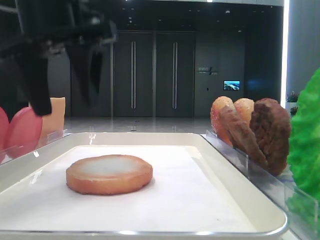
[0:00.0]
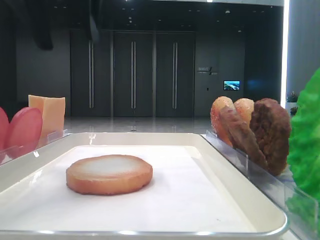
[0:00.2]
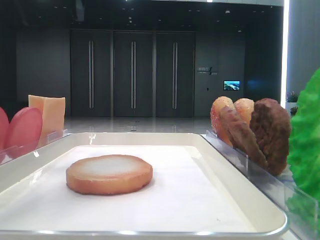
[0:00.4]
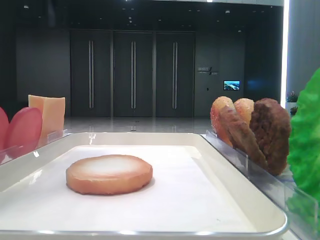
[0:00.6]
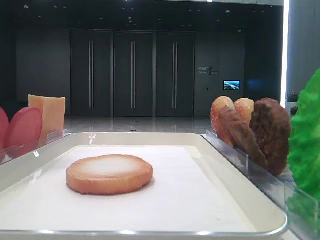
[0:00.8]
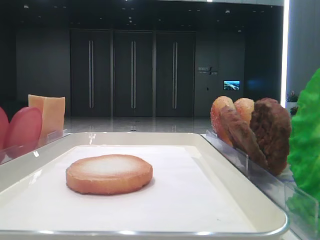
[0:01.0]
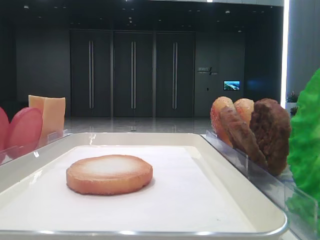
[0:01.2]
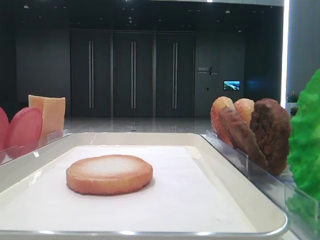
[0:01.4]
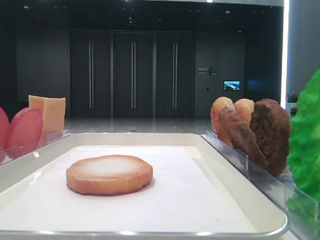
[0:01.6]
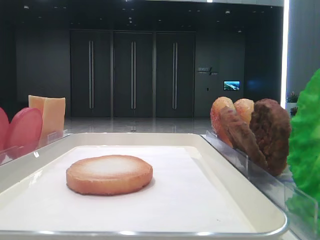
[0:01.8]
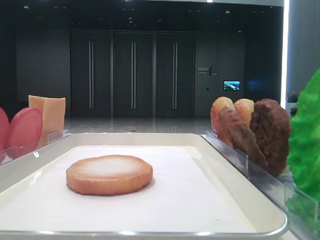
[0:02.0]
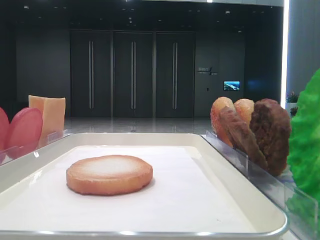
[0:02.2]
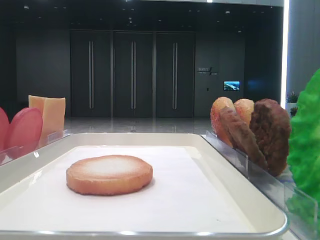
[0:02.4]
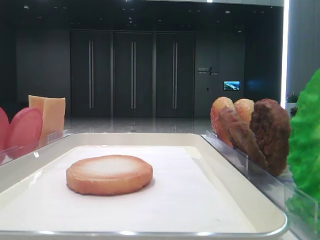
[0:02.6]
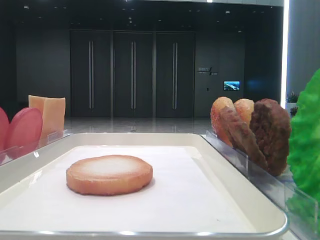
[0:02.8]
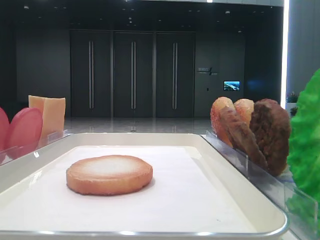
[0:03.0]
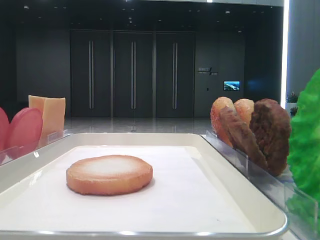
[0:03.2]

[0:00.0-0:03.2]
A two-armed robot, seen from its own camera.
0:00.0 to 0:01.6: The left gripper shifts some 30 cm backward and to the left.

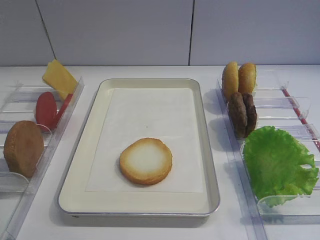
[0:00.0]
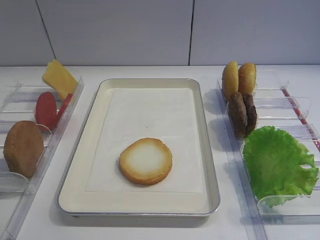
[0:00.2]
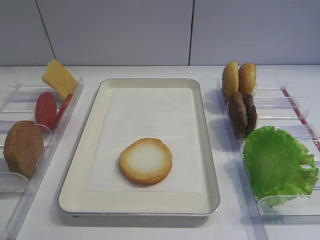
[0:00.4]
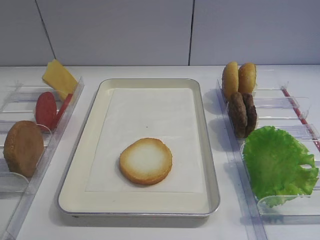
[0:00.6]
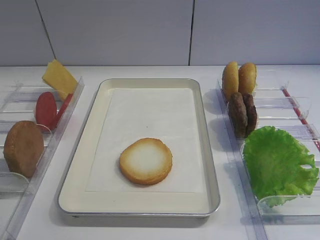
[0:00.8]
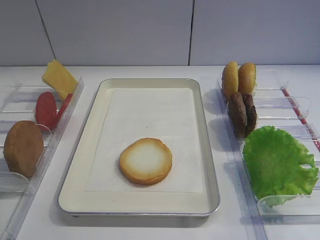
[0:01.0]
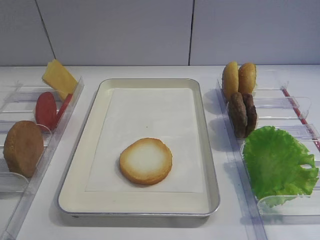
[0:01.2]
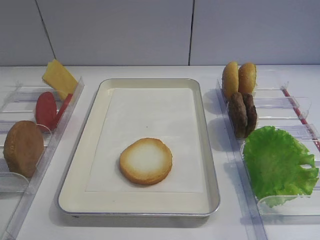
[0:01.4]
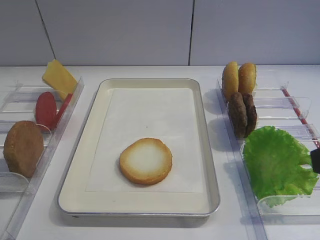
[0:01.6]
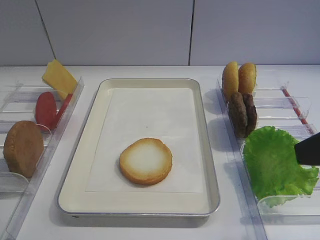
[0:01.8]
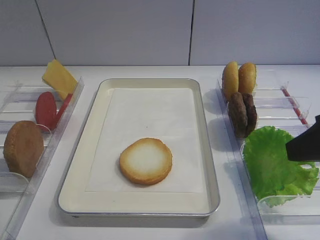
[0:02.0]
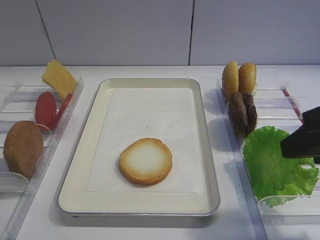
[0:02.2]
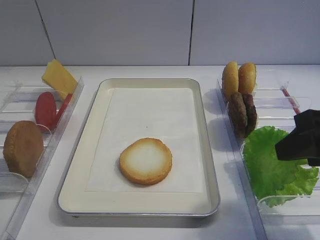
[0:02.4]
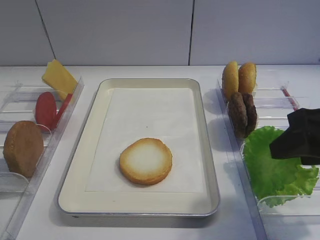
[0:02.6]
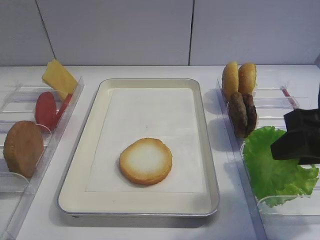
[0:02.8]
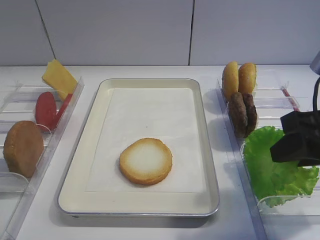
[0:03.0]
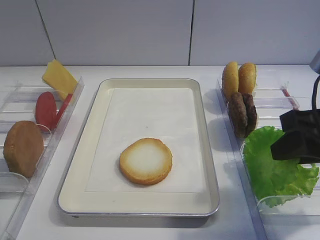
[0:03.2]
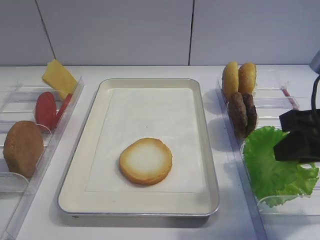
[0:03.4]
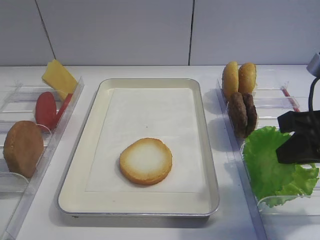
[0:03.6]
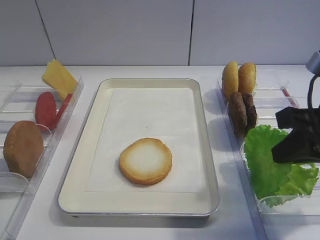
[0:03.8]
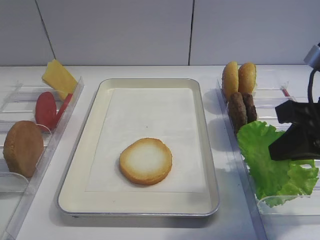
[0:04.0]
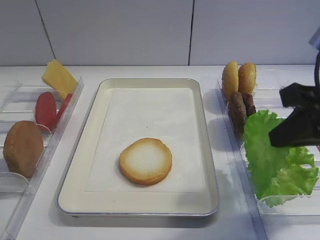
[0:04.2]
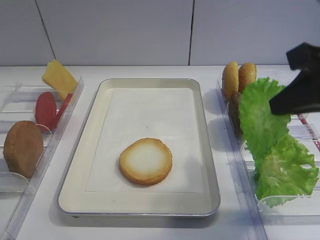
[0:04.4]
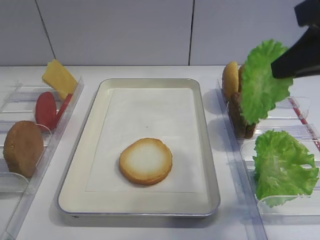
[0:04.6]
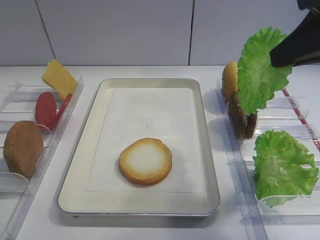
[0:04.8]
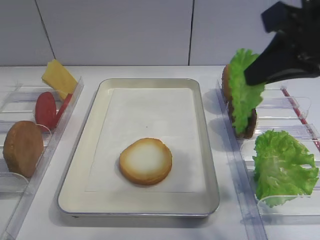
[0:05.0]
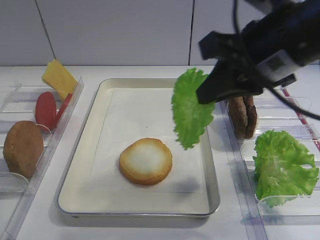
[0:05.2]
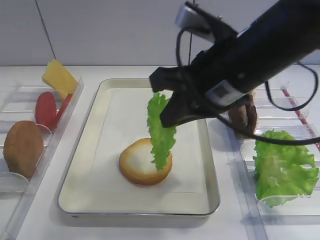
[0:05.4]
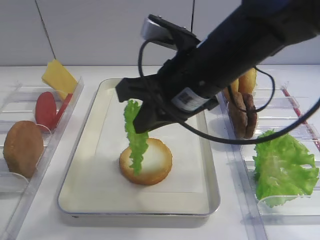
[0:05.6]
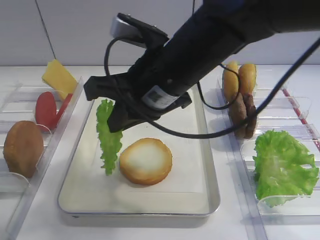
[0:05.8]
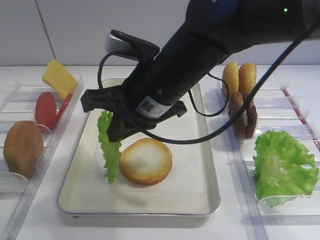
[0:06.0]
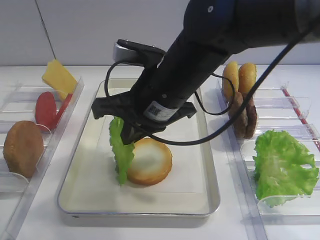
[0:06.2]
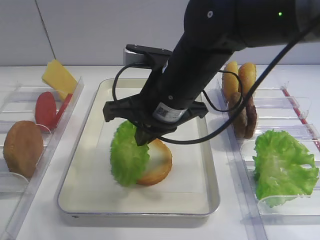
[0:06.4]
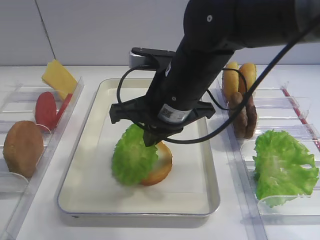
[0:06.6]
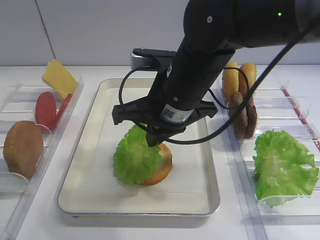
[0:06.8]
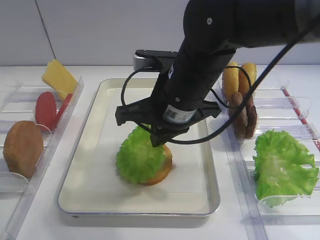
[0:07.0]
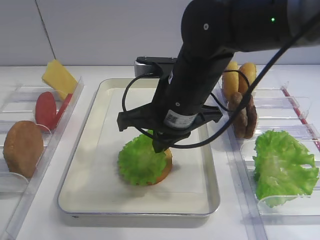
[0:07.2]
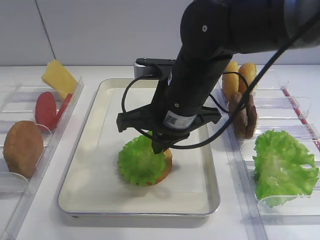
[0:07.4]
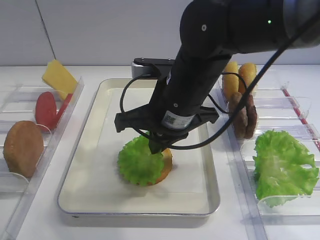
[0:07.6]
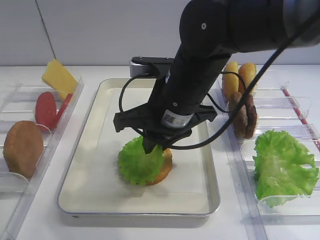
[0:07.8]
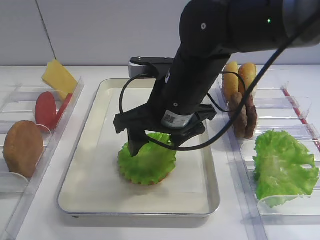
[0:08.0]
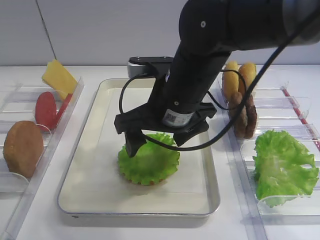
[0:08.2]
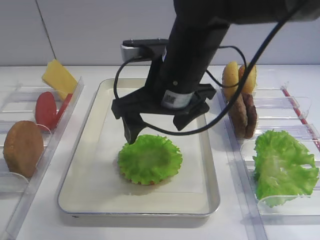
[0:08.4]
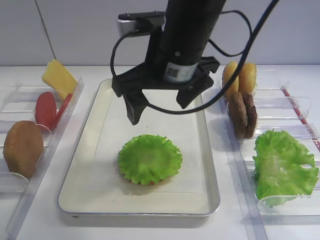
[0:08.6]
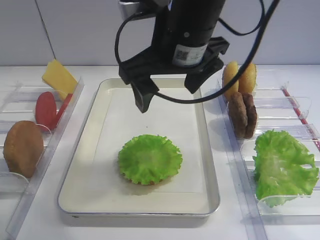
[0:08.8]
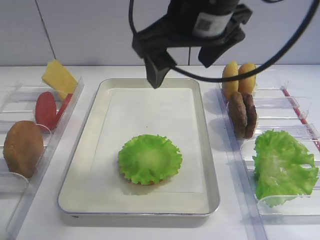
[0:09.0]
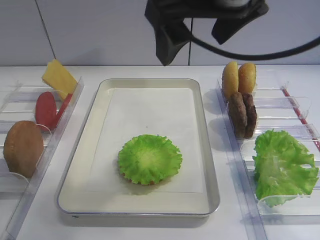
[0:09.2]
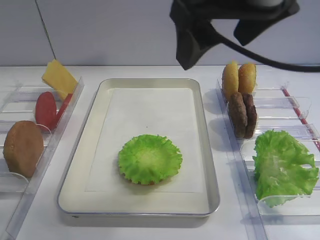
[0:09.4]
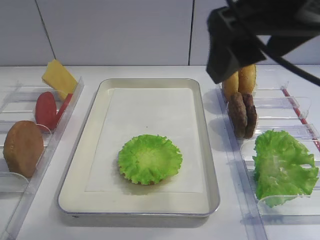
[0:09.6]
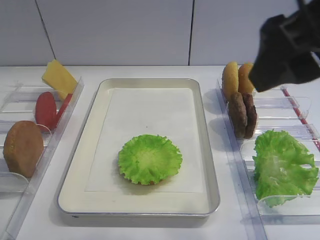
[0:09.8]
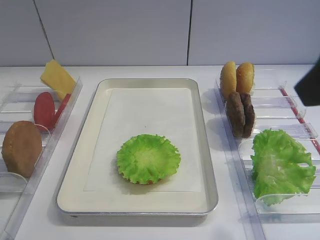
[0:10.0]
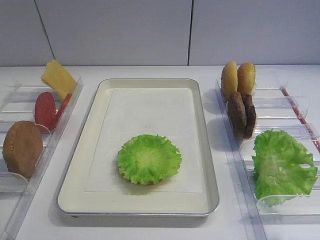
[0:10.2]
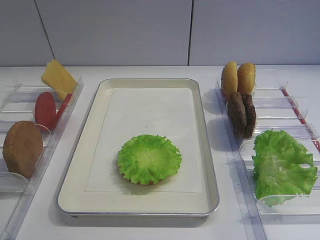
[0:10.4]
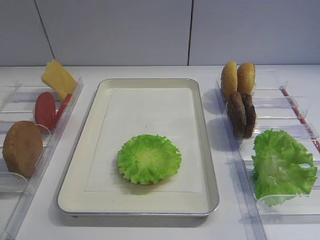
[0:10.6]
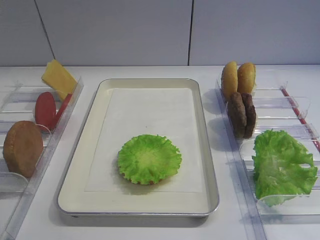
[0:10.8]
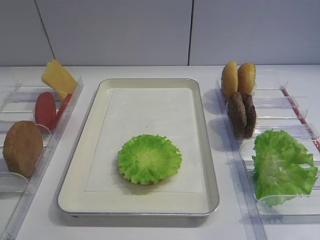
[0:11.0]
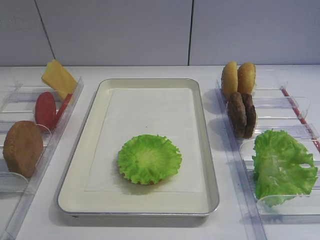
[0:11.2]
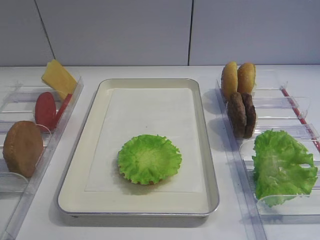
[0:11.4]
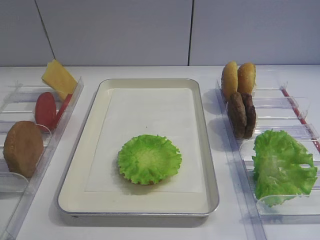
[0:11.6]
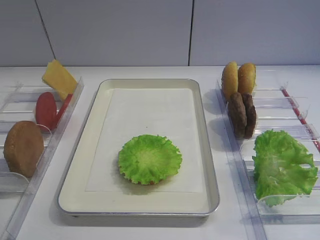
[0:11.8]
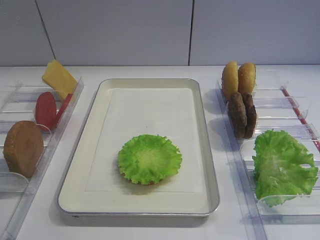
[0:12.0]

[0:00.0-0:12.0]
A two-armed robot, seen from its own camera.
Step, 0:00.0 to 0:04.8: Pick up the lettuce leaf with the right gripper.
Step, 0:05.2 to 0:08.2: Place the lettuce leaf on the bread slice with the right gripper.
0:01.6 to 0:03.0: The right gripper goes some 10 cm forward and downward.
0:03.0 to 0:04.4: The right gripper shifts roughly 5 cm upward, and closes.
0:04.4 to 0:06.0: The right gripper travels to the left by some 20 cm.
0:07.6 to 0:09.0: The right gripper heads upward, covering roughly 15 cm, and opens up.
0:09.0 to 0:10.4: The right gripper travels to the right and backward by some 25 cm.

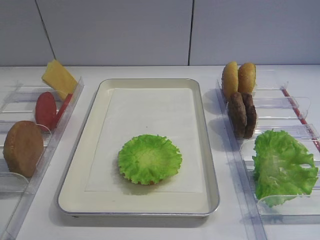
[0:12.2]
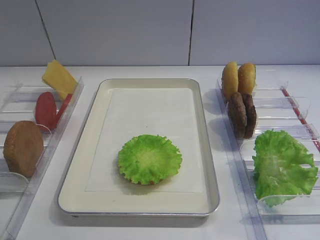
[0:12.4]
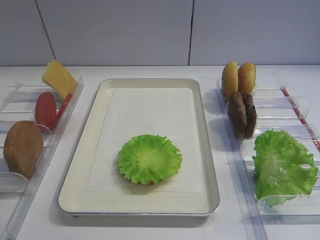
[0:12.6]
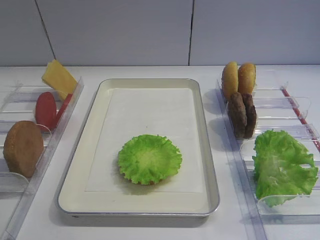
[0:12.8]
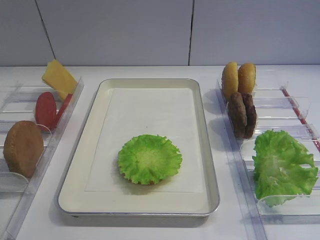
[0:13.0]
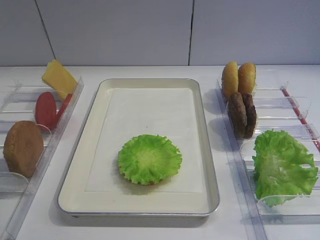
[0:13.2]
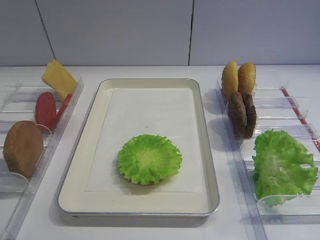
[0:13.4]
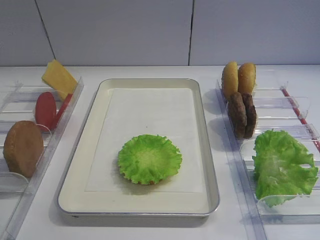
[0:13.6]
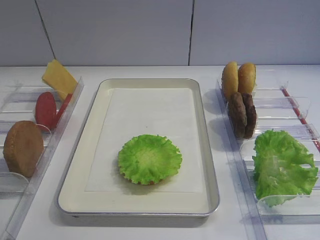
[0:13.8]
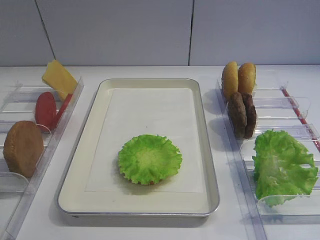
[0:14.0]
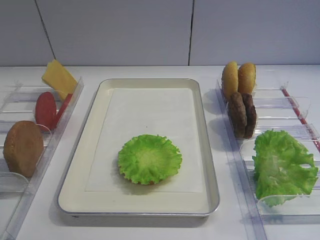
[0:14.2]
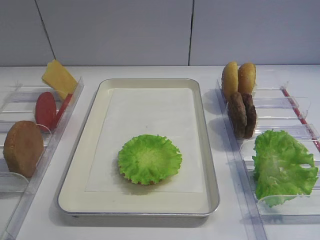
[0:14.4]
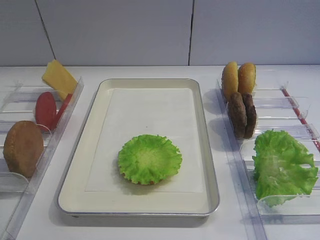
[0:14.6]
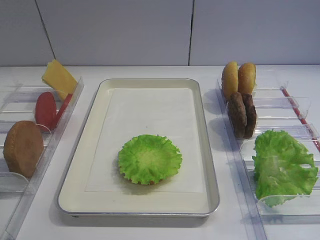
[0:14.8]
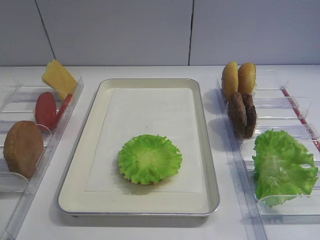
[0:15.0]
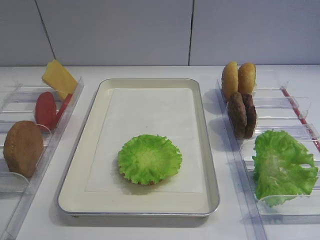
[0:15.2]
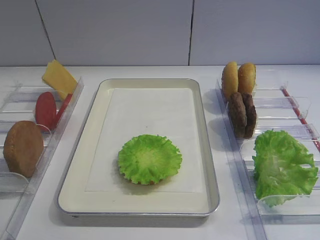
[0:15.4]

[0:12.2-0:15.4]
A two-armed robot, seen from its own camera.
0:12.2 to 0:15.4: The two grippers keep their place.

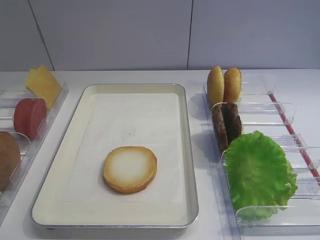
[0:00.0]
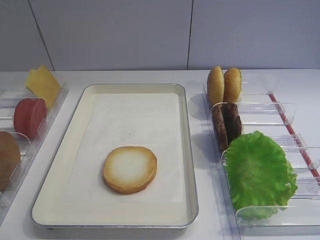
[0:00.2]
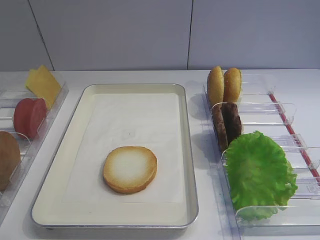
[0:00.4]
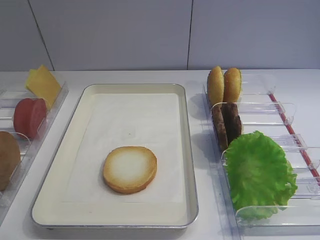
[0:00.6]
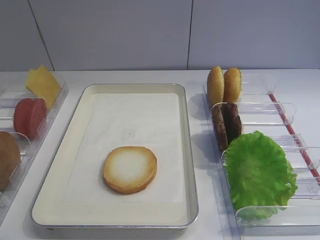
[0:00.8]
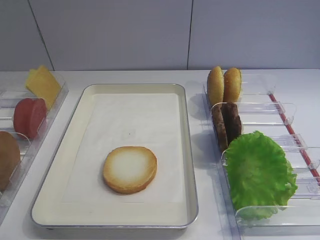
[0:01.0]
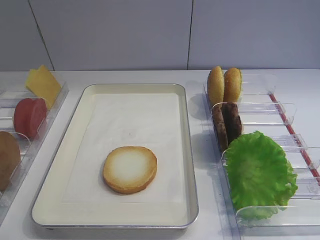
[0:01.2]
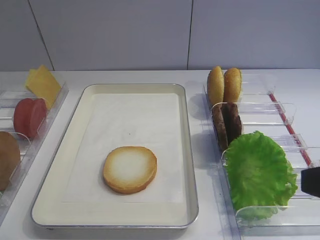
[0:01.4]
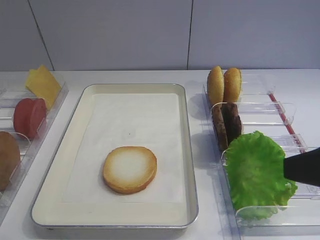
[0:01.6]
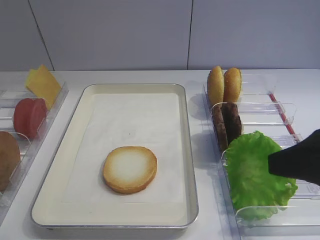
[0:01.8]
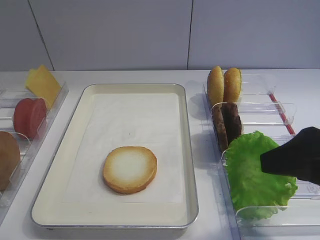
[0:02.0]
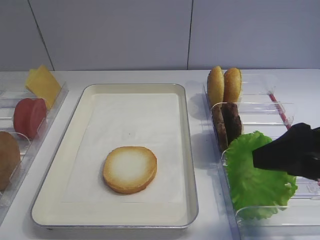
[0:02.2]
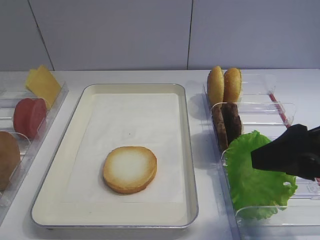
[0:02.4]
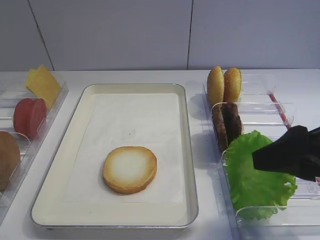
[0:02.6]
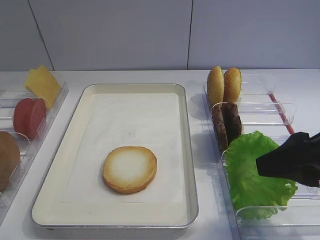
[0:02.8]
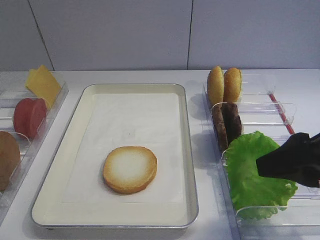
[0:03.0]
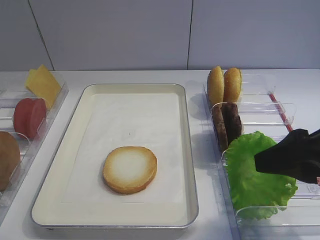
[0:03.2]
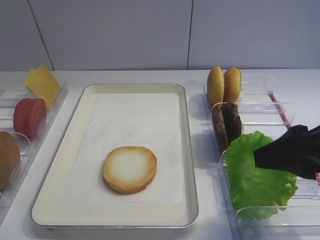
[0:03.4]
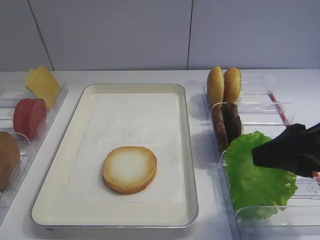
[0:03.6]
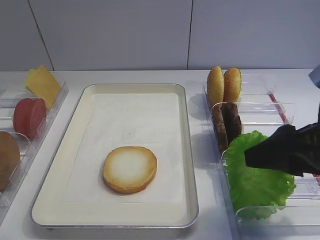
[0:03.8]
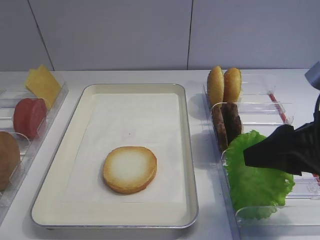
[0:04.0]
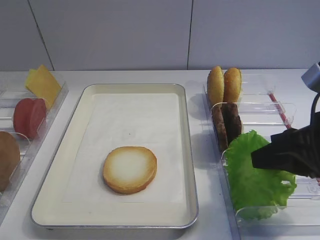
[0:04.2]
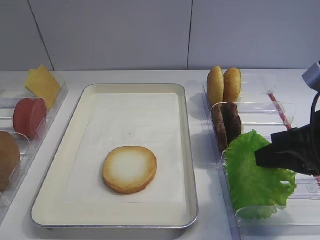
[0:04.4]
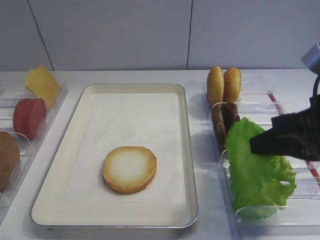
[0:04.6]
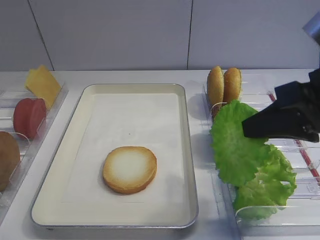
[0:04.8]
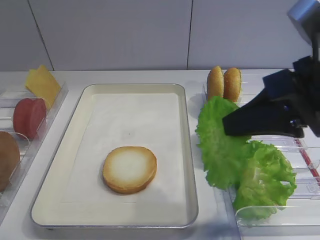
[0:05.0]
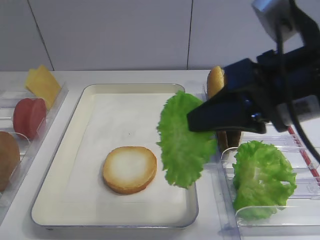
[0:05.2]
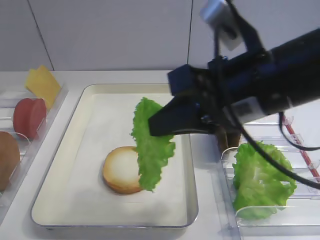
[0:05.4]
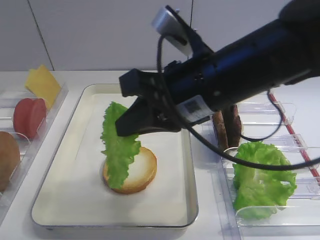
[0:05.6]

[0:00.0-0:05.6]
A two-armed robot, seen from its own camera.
Step, 0:00.0 to 0:04.6: Pick up the lettuce leaf with the right gripper.
0:01.4 to 0:02.8: The right gripper travels forward by some 10 cm.
0:02.8 to 0:04.2: The right gripper closes its fingers.
0:04.2 to 0:05.6: The right gripper goes about 15 cm to the left, and closes up.
